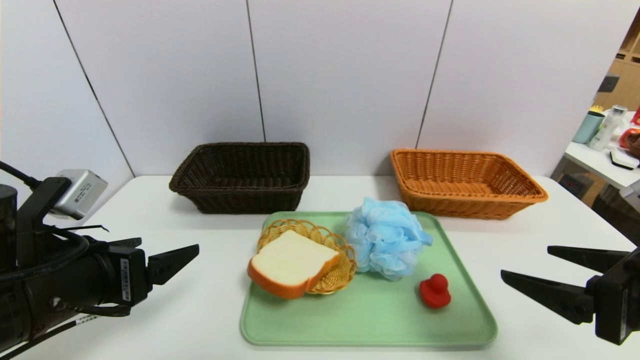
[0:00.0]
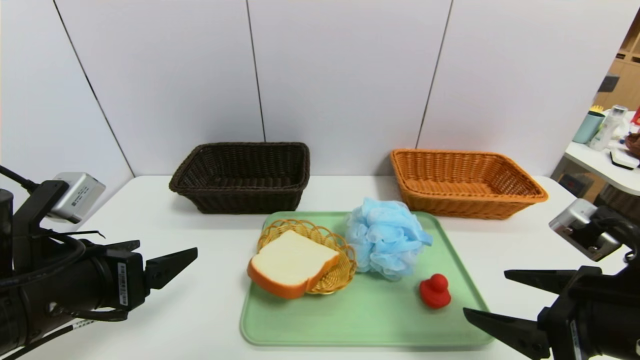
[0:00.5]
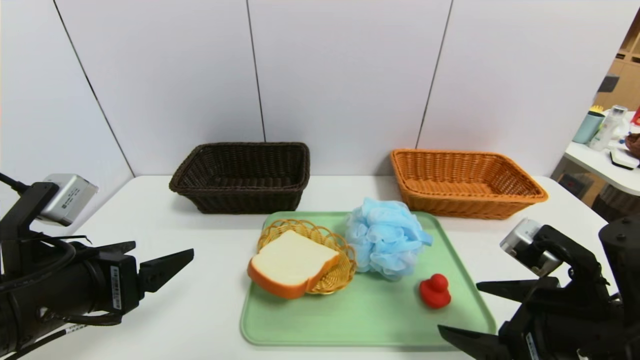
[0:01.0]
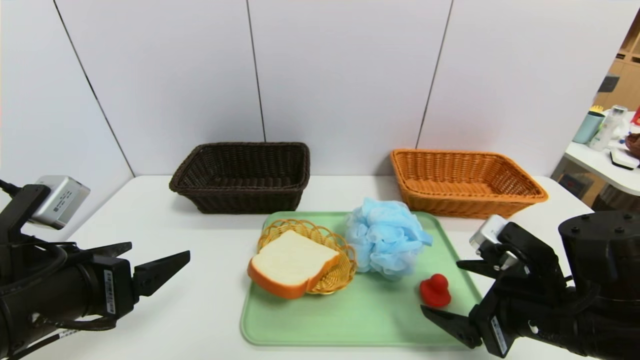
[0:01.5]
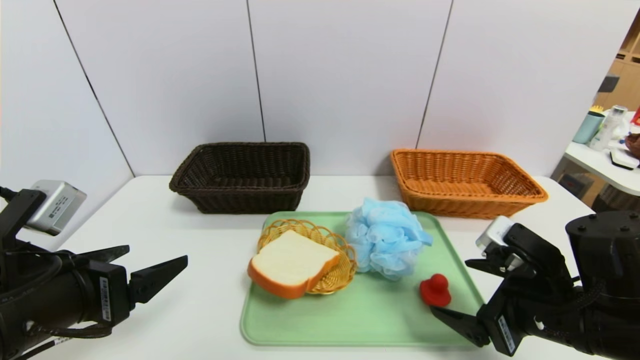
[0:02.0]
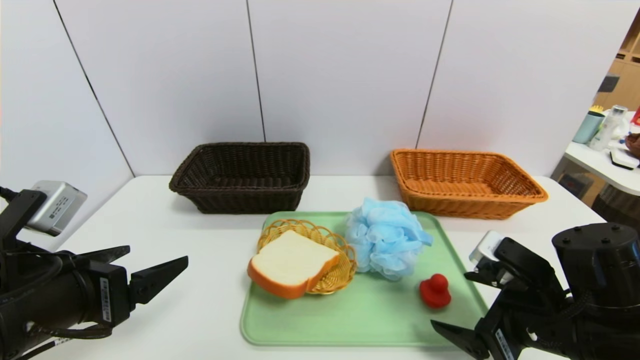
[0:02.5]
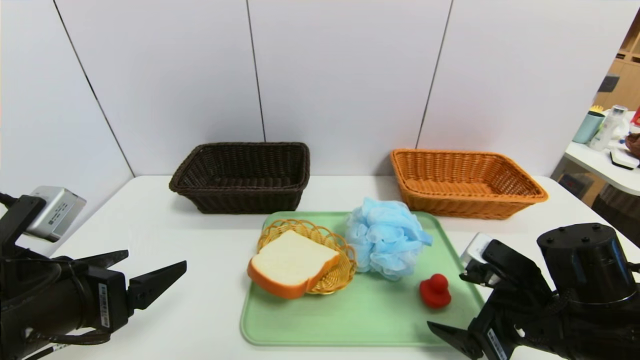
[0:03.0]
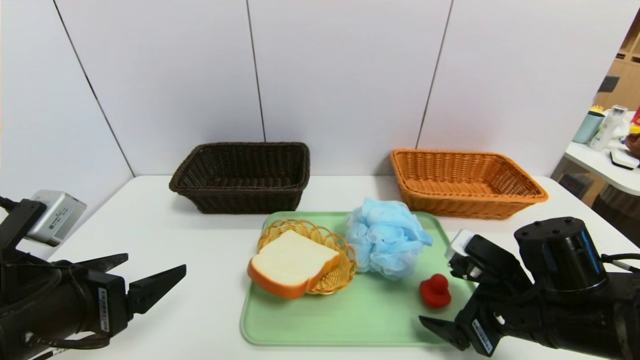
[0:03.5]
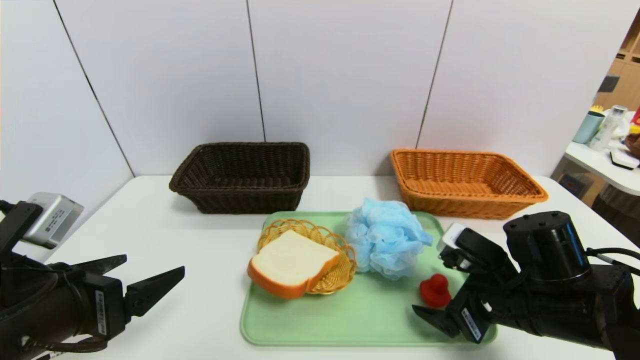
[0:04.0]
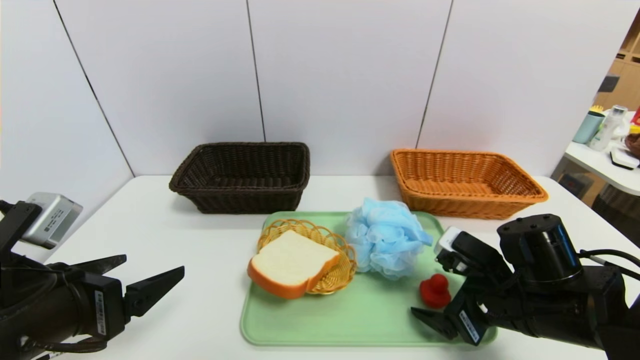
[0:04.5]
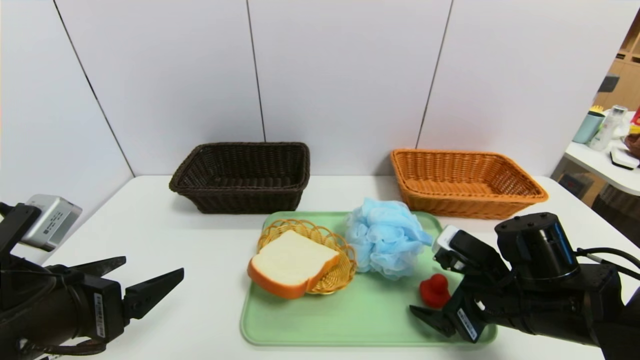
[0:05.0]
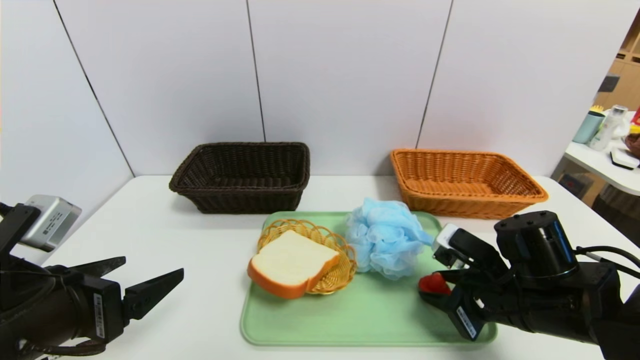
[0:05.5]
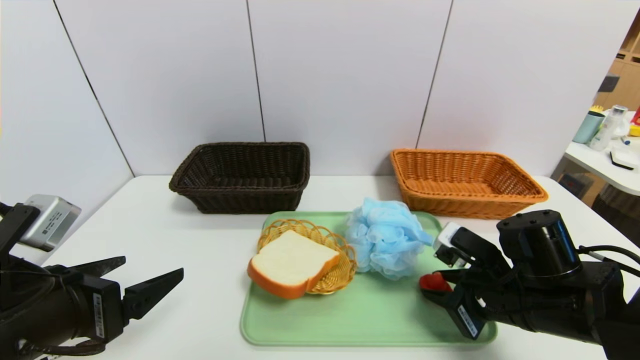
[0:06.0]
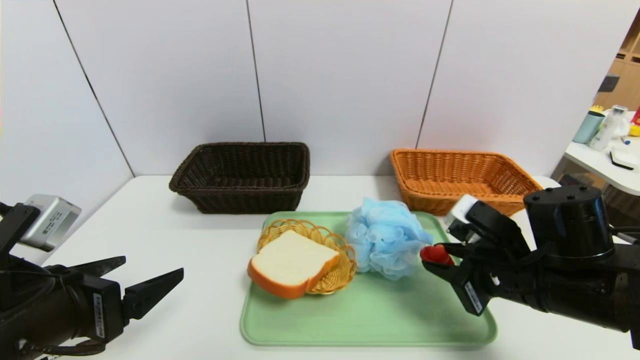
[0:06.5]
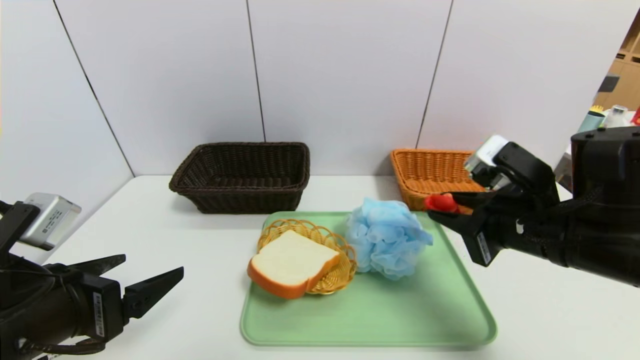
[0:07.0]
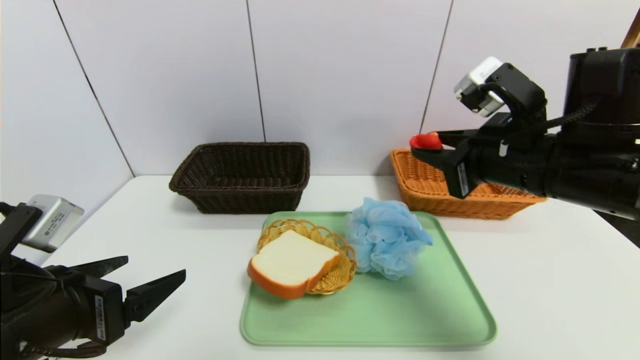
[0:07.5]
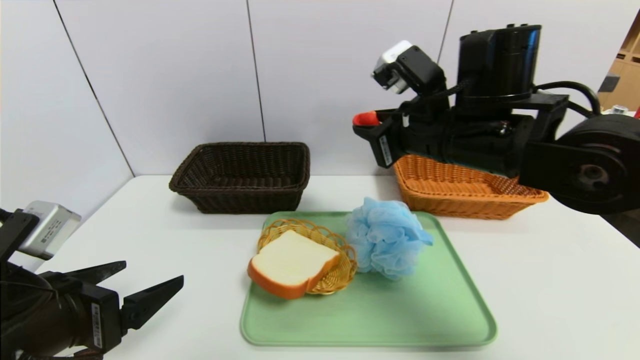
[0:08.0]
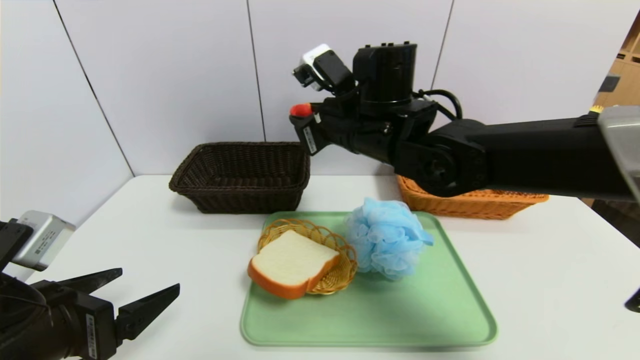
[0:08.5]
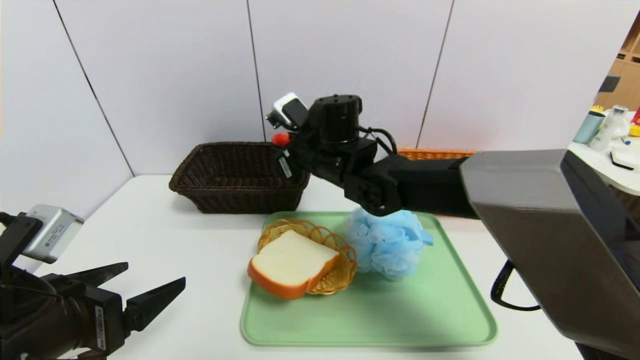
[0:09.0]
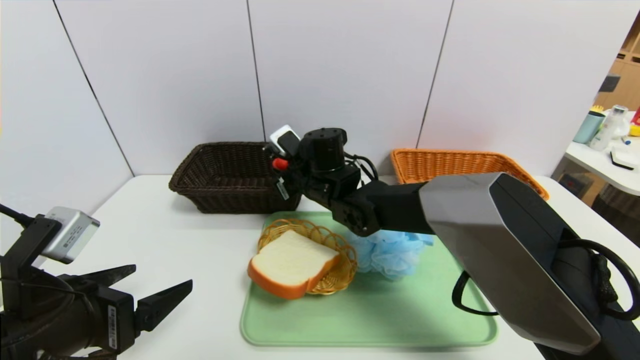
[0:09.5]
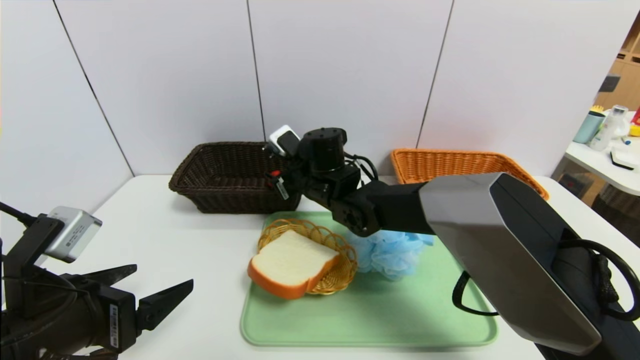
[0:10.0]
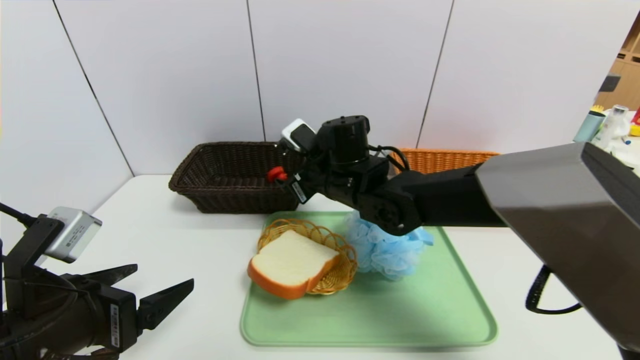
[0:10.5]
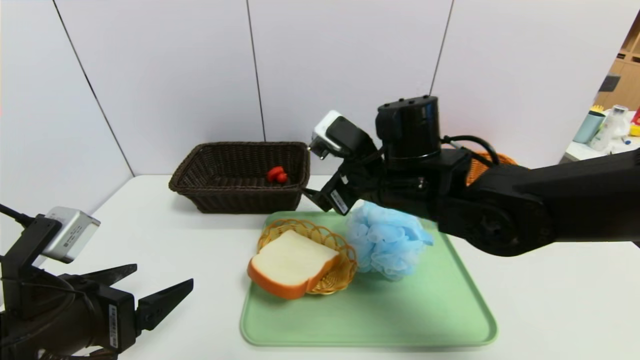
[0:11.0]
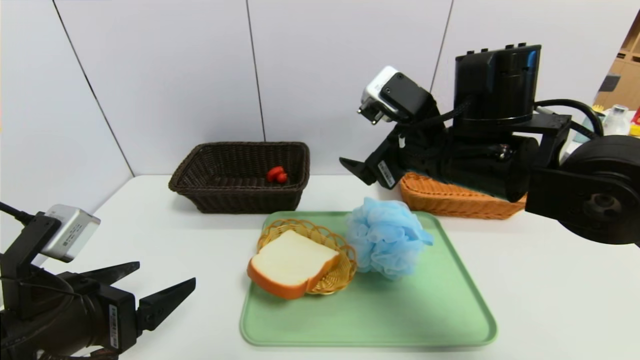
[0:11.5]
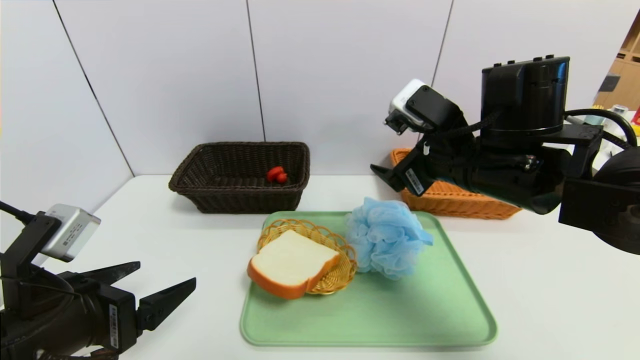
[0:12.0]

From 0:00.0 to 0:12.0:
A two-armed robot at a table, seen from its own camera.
Task of the whole recording: place the food in the right basket with the right gripper, and place the non food items in the left basket with the left gripper.
From 0:00.0 to 0:02.0: The right gripper travels downward by about 5 cm.
From 0:02.0 to 0:04.0: The grippers make only small movements.
From 0:04.0 to 0:06.0: The right gripper closes up.
From 0:06.0 to 0:08.0: The right gripper is displaced upward, to the left and forward by roughly 20 cm.
From 0:08.0 to 0:10.0: The right gripper is displaced to the left, downward and forward by roughly 20 cm, and opens its fingers.
From 0:10.0 to 0:12.0: The right gripper shifts about 25 cm to the right, backward and upward.

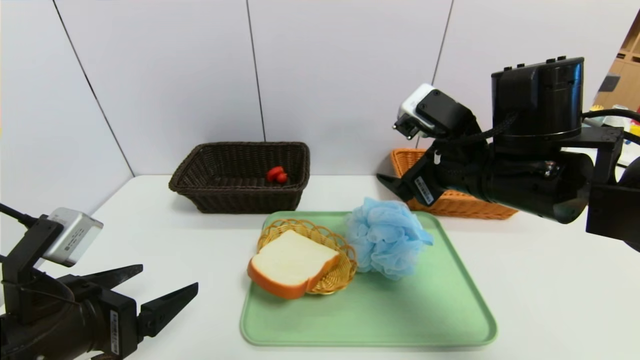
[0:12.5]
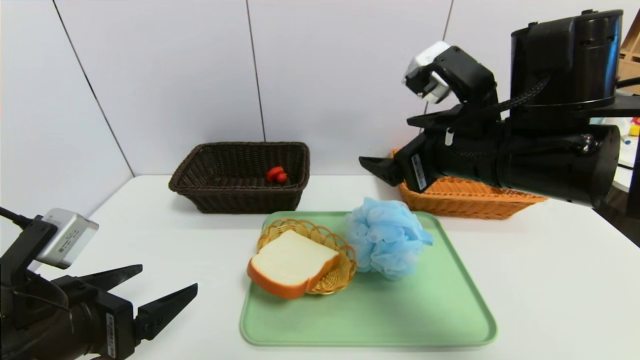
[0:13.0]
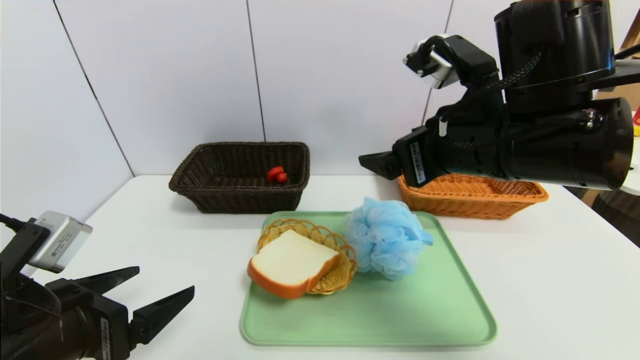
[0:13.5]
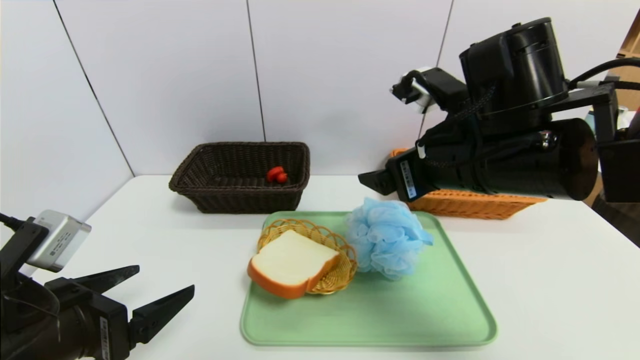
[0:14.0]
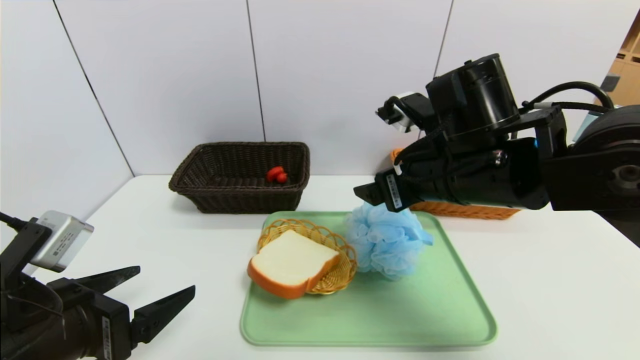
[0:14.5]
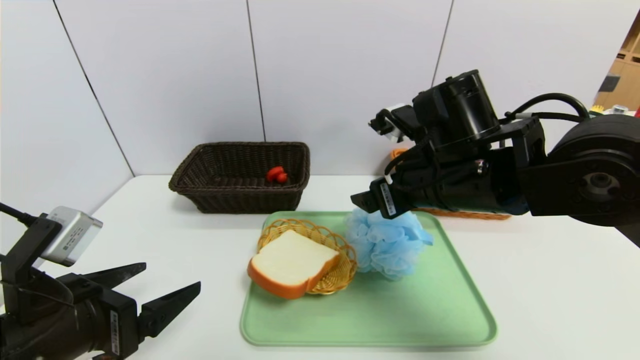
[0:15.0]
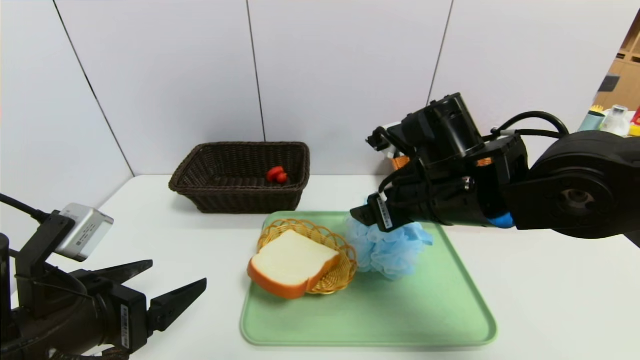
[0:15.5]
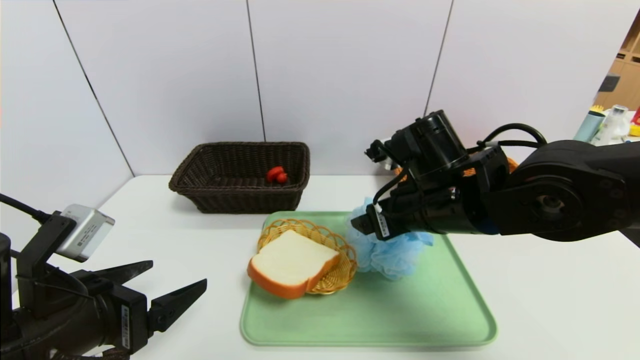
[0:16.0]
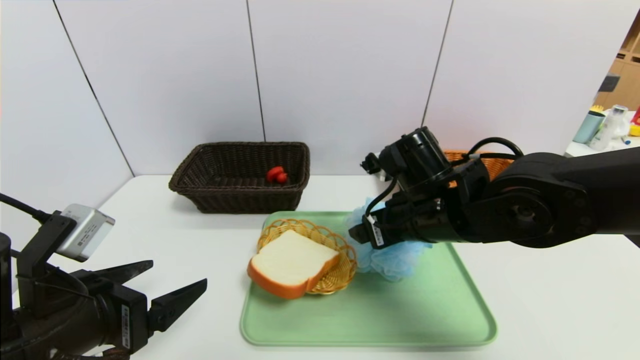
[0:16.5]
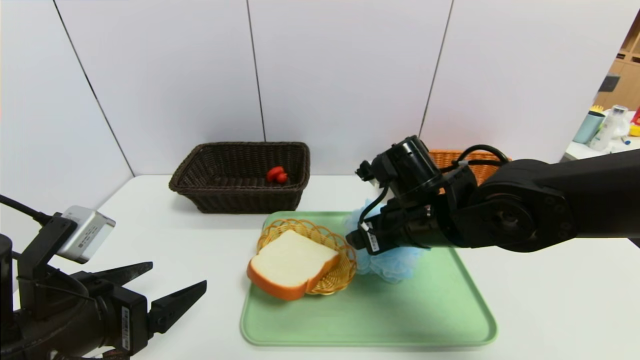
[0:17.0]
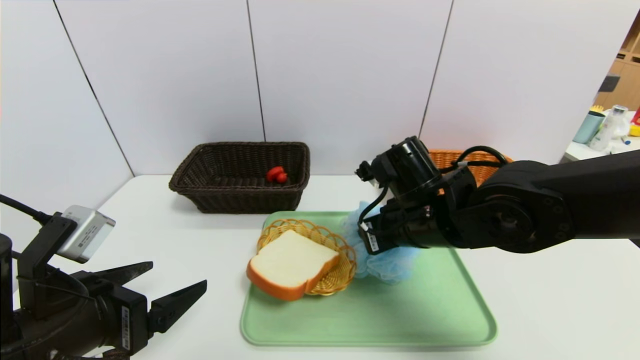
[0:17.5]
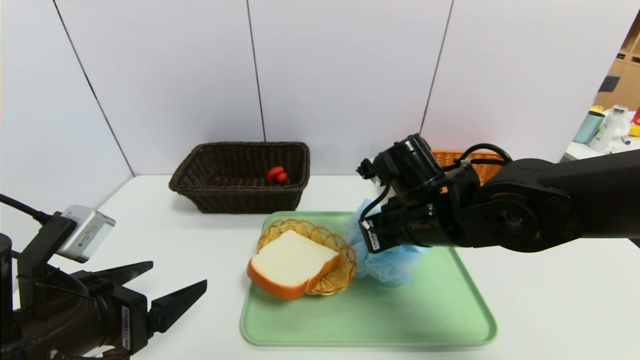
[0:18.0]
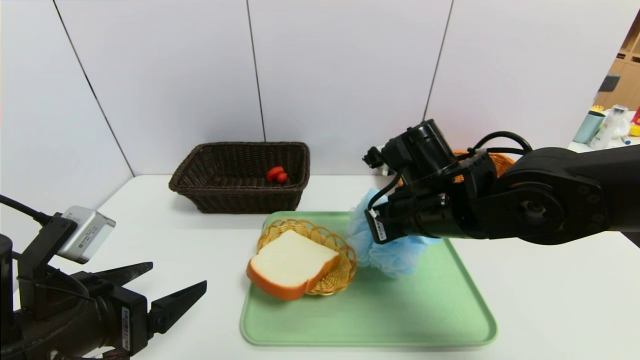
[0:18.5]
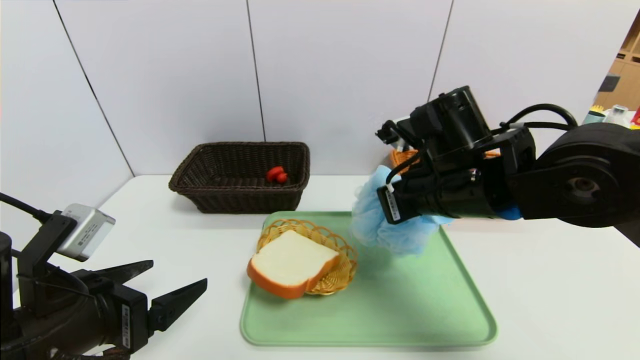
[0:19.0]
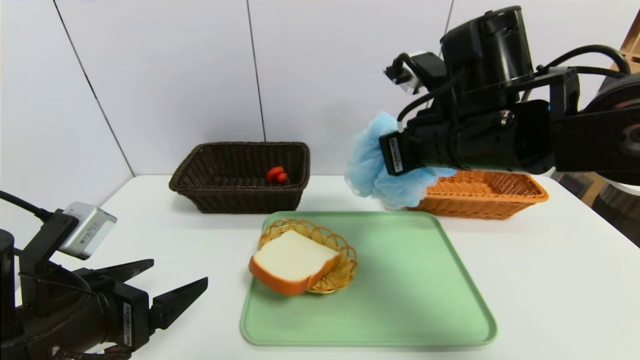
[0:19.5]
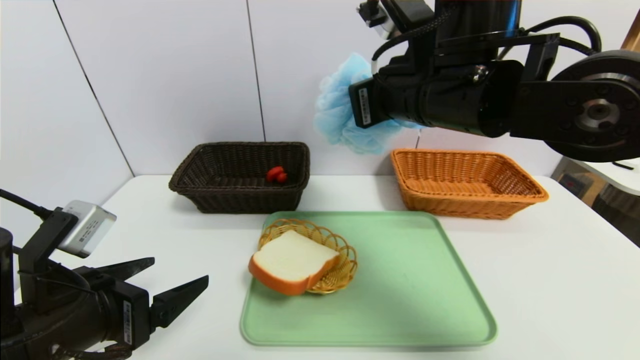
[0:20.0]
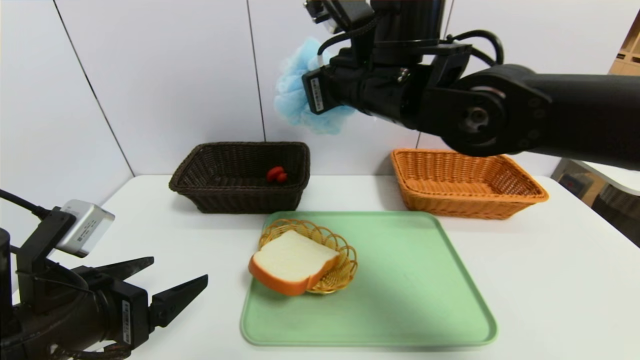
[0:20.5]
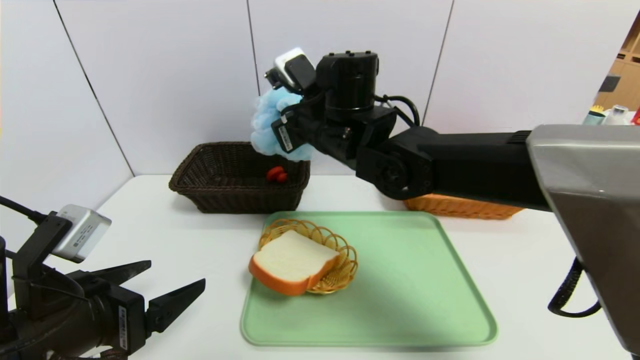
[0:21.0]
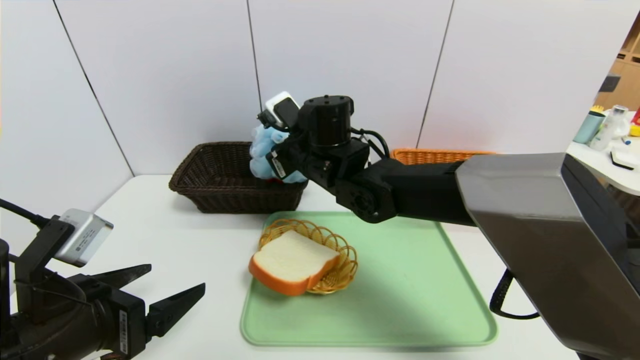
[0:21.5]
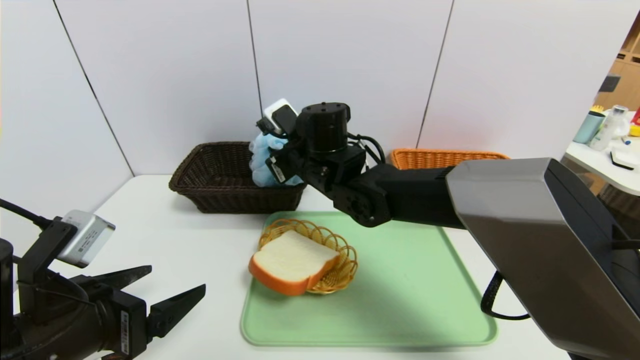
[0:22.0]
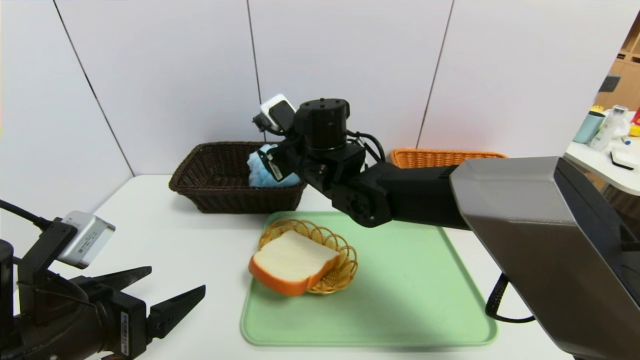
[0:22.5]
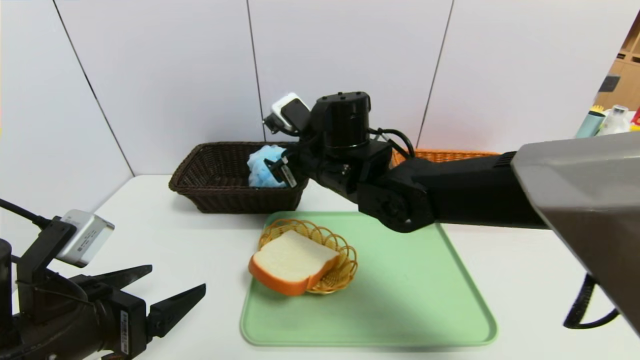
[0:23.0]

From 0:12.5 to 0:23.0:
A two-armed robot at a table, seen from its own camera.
Task of the whole recording: place the food in the right basket with the right gripper, and place the non food items in the left basket with the left gripper.
From 0:14.5 to 0:16.5: The right gripper is displaced downward by about 5 cm.
From 0:16.5 to 0:19.0: The right gripper closes up.
From 0:19.0 to 0:21.0: The right gripper travels to the left and forward by approximately 15 cm.
From 0:21.0 to 0:23.0: The right gripper opens.
